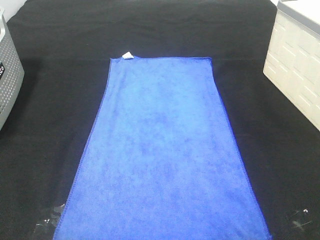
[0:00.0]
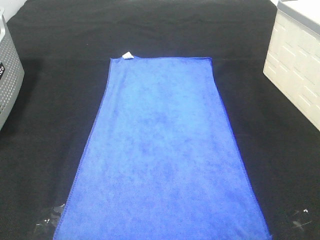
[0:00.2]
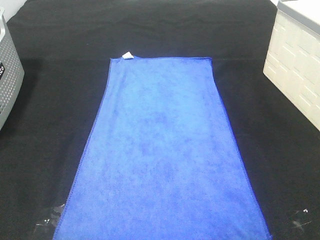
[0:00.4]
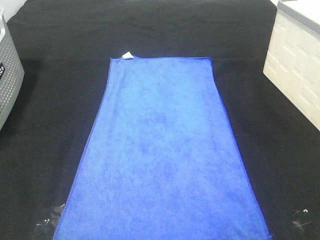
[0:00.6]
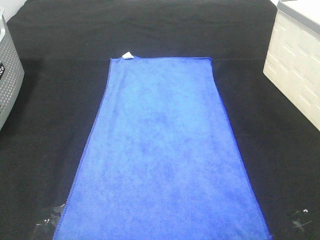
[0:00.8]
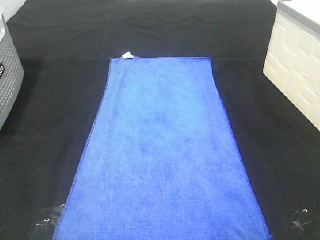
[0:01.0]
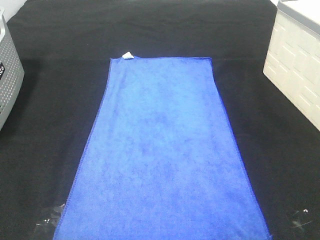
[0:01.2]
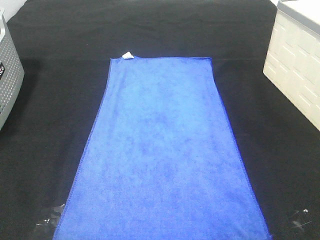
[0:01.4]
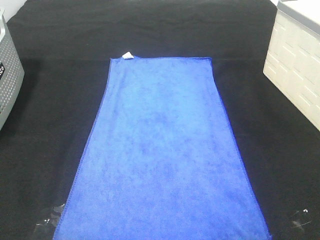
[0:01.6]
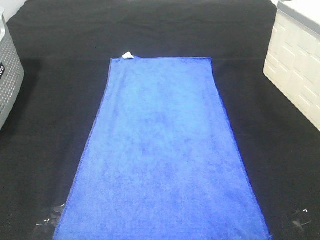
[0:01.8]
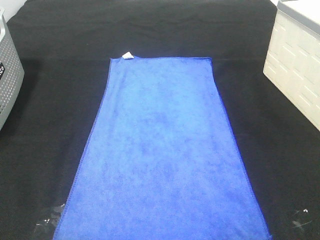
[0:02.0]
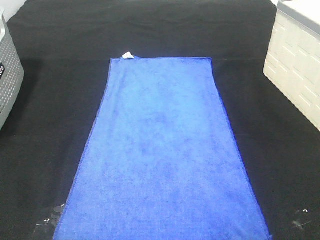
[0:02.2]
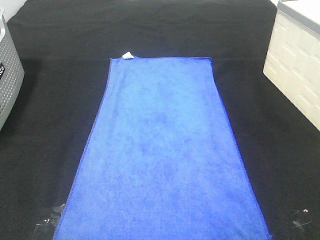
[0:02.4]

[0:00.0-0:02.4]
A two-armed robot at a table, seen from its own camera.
Task of the whole recording: Remove the towel and place it.
0:01.2 to 0:02.4: Both grippers stay about where they are.

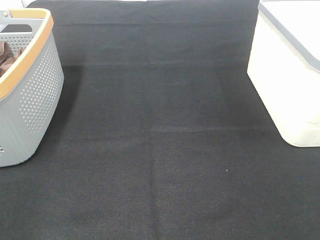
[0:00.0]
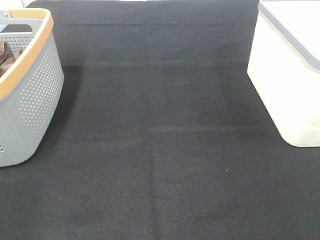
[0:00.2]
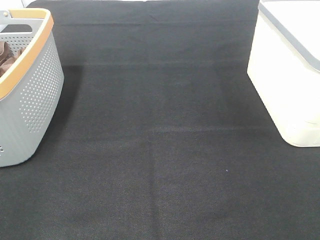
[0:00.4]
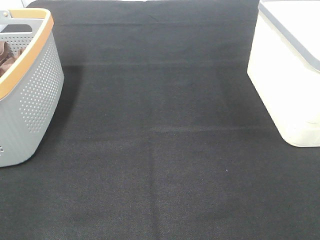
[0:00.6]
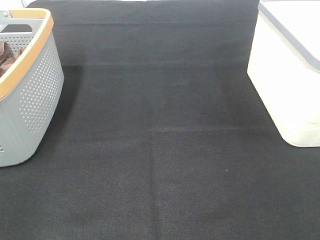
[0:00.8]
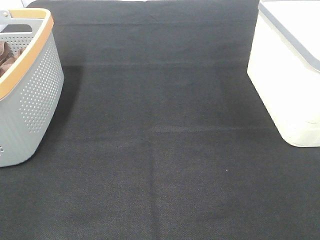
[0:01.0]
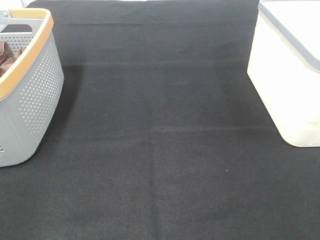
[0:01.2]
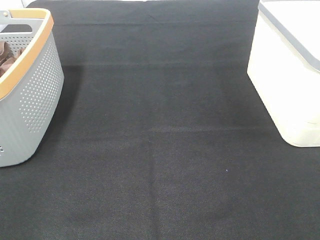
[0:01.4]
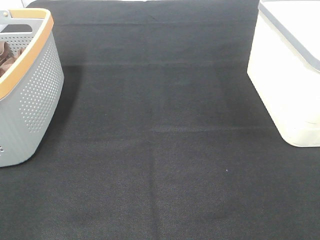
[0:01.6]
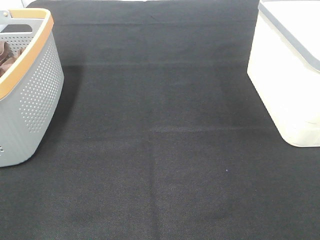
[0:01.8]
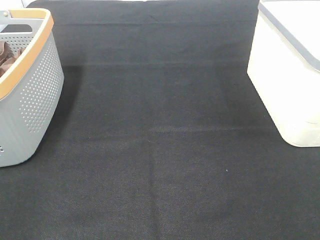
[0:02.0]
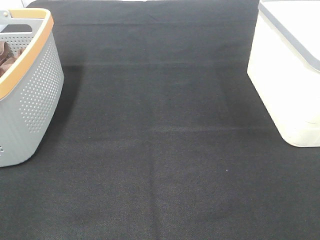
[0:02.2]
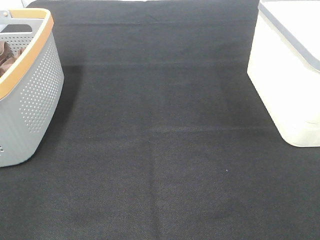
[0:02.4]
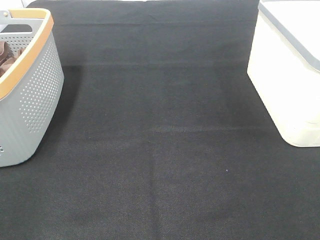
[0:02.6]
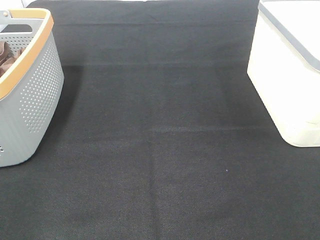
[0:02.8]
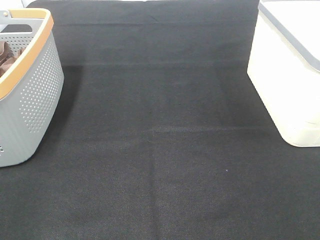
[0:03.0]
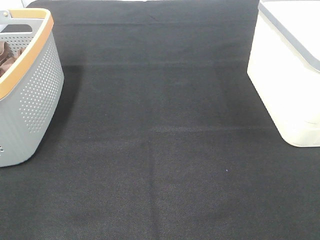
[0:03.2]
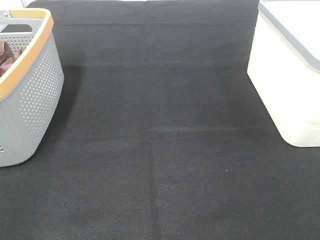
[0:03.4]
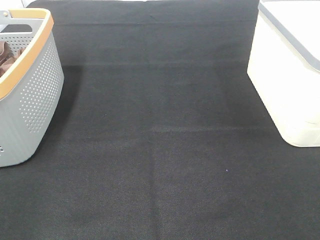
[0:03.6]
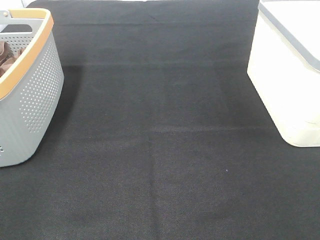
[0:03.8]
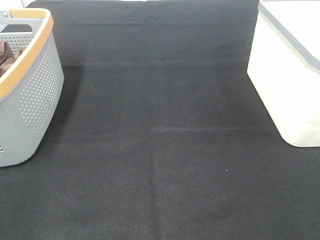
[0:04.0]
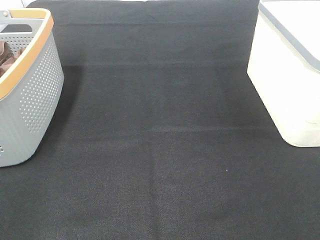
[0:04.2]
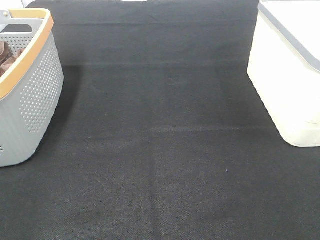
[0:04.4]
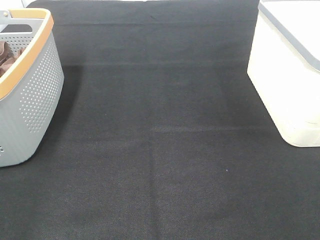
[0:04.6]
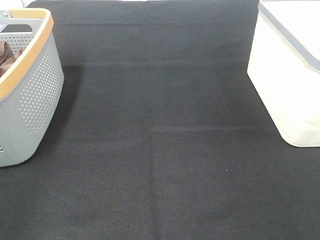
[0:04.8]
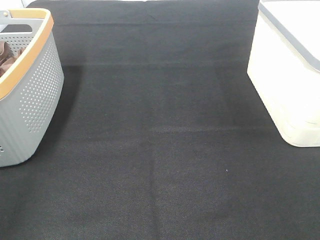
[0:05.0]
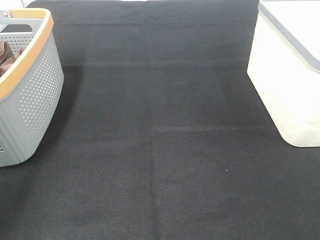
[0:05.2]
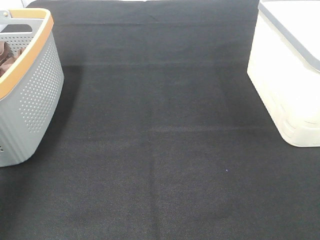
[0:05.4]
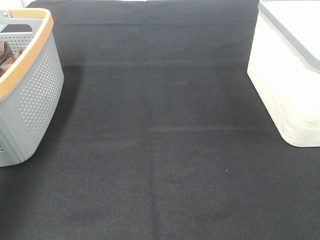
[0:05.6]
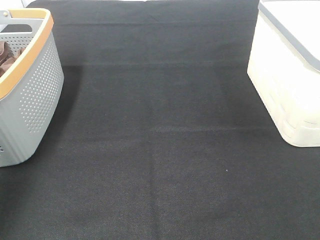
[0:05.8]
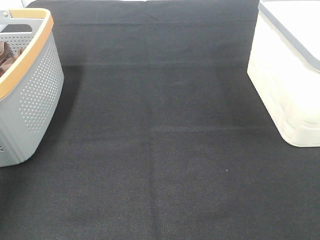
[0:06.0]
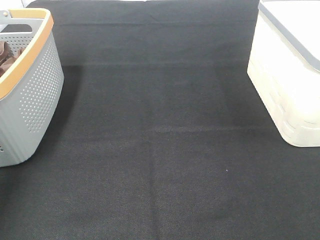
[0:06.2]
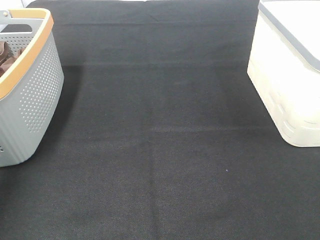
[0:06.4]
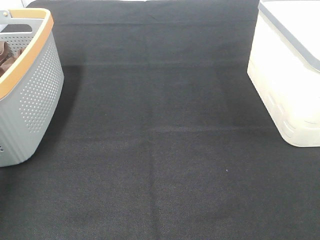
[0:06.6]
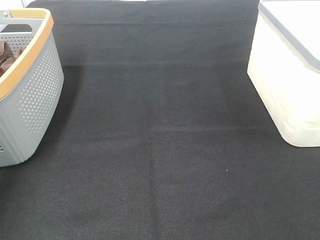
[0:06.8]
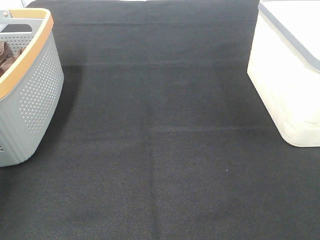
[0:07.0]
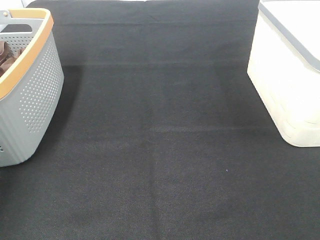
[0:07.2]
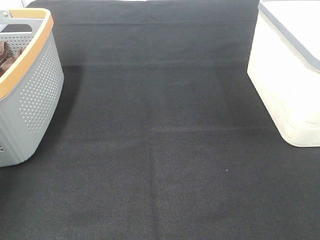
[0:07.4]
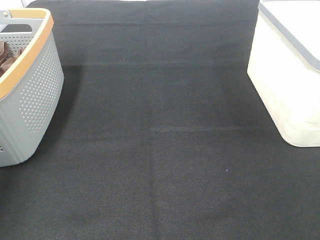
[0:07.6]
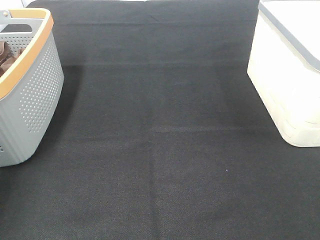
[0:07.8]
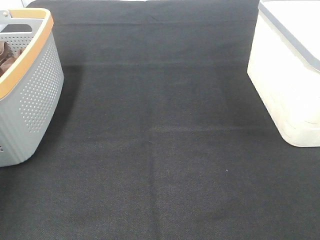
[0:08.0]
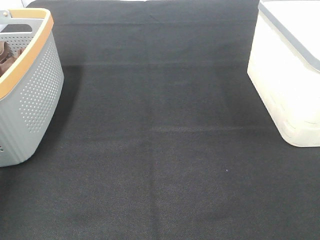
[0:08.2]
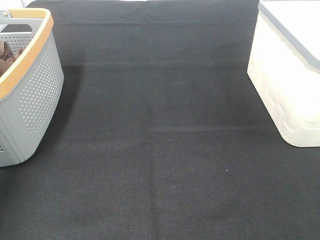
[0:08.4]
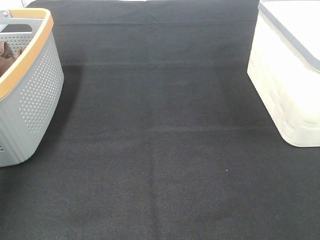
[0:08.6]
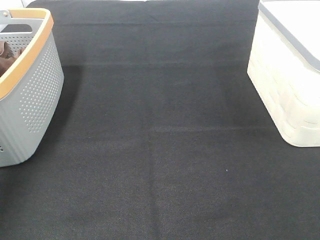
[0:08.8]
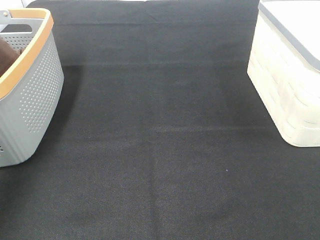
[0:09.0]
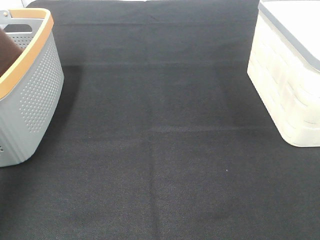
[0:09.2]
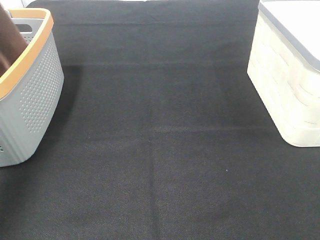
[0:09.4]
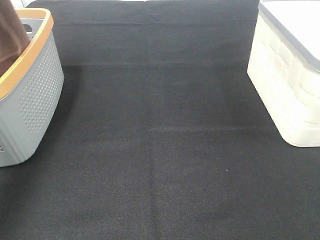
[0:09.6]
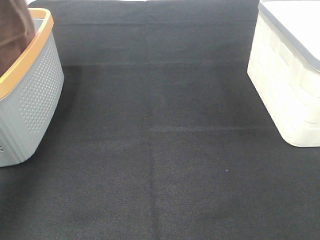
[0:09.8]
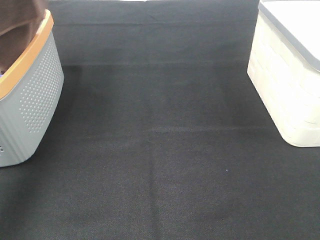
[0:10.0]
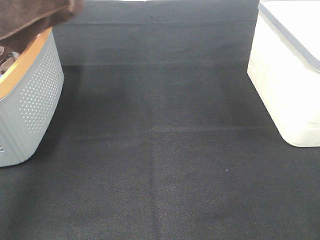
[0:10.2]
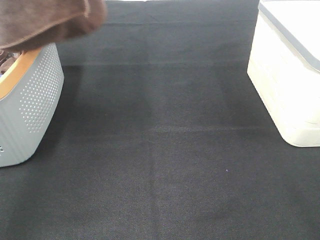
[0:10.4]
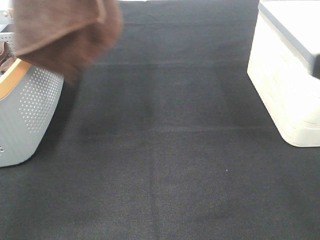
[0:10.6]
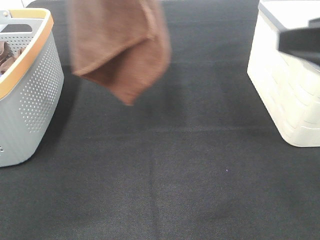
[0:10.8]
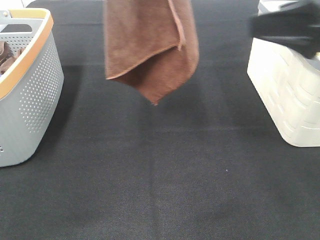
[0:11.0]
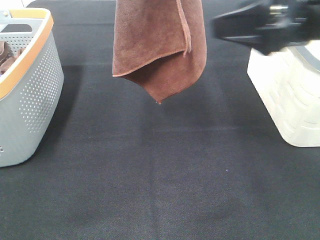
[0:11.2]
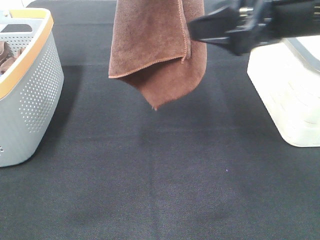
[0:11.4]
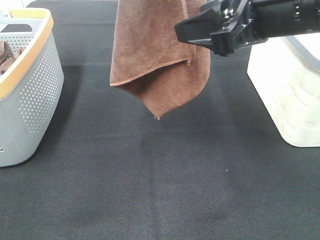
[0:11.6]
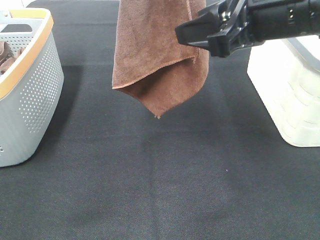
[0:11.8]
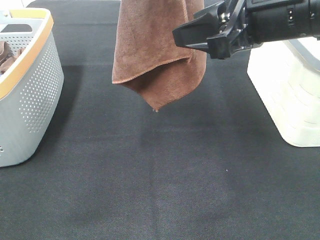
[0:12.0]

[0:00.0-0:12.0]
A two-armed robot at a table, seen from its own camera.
Task of the whole recording: Remove the towel and place it.
0:00.0 to 0:03.0: Both grippers stay put.
0:04.4 to 0:06.0: The left gripper shifts approximately 30 cm forward.
0:09.0 to 0:10.4: The left gripper travels to the right and upward by roughly 15 cm.
0:10.4 to 0:12.0: The right gripper is displaced forward and to the left by some 20 cm, while the left gripper heads to the right, covering approximately 10 cm.

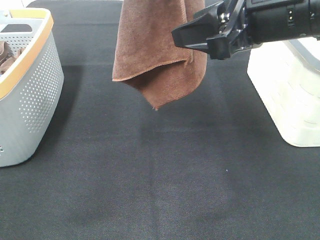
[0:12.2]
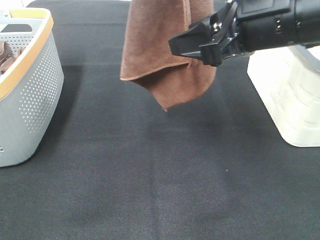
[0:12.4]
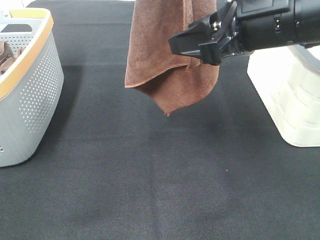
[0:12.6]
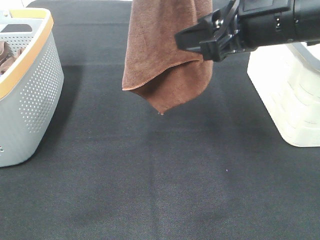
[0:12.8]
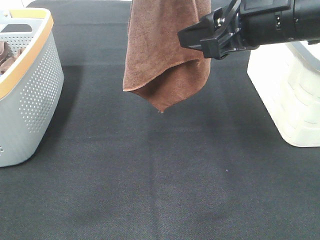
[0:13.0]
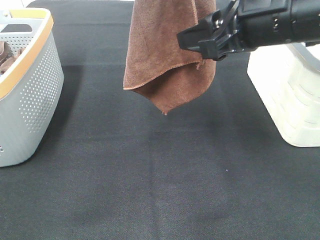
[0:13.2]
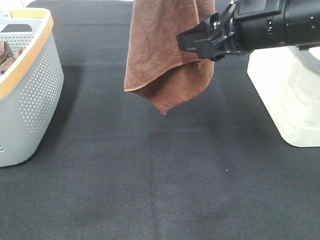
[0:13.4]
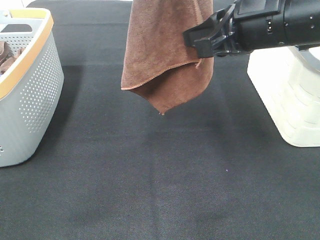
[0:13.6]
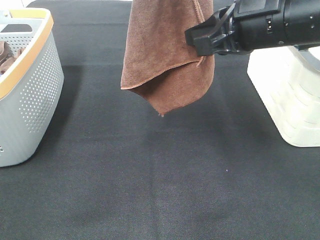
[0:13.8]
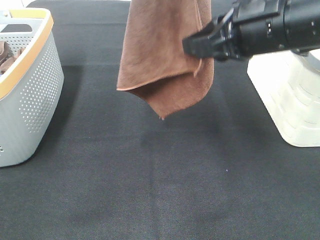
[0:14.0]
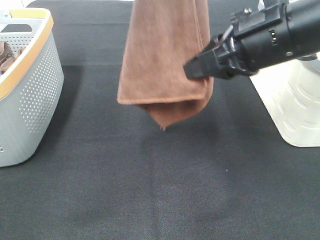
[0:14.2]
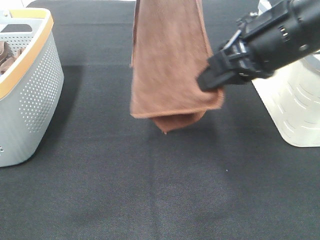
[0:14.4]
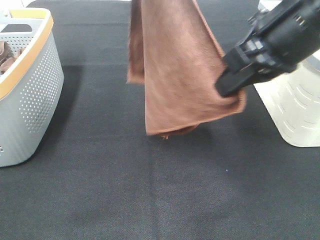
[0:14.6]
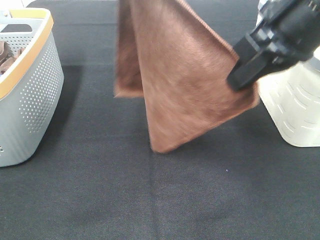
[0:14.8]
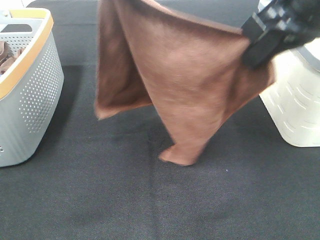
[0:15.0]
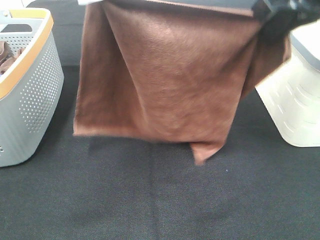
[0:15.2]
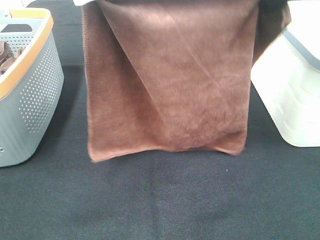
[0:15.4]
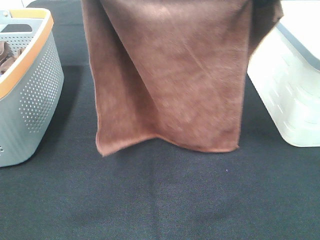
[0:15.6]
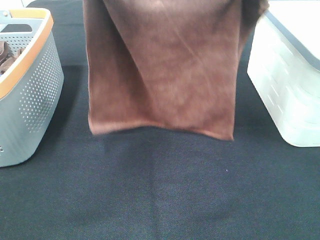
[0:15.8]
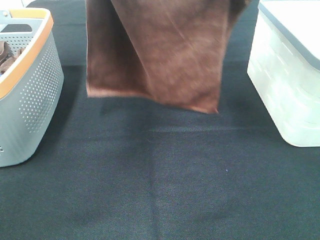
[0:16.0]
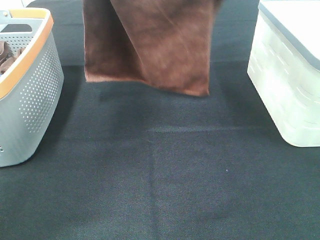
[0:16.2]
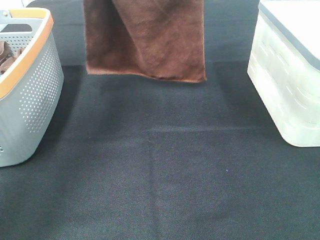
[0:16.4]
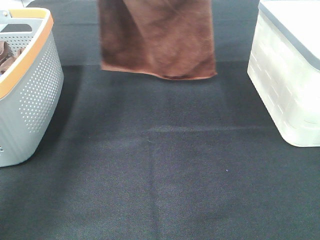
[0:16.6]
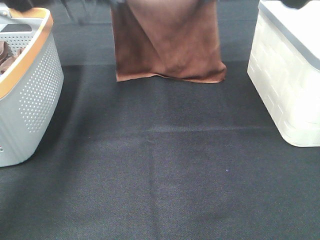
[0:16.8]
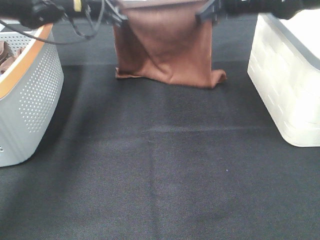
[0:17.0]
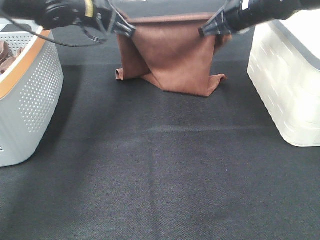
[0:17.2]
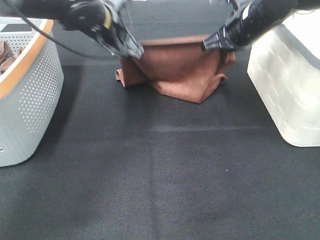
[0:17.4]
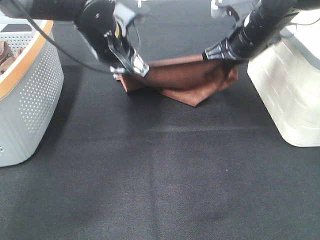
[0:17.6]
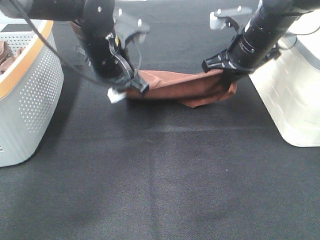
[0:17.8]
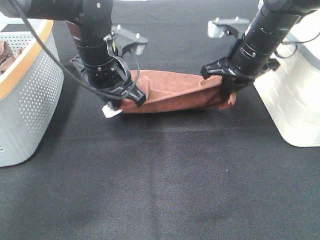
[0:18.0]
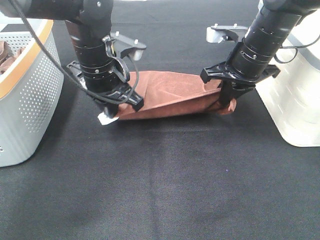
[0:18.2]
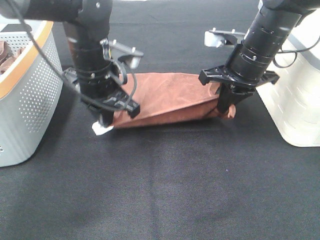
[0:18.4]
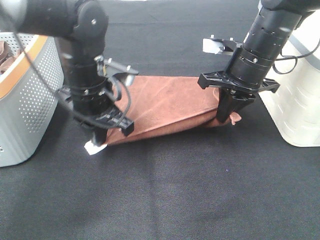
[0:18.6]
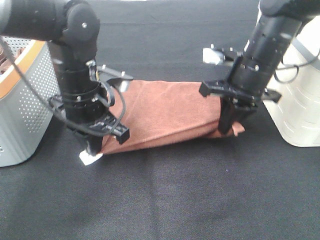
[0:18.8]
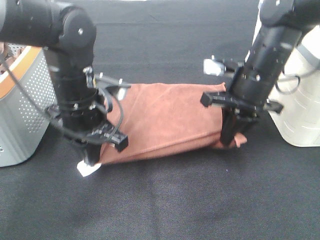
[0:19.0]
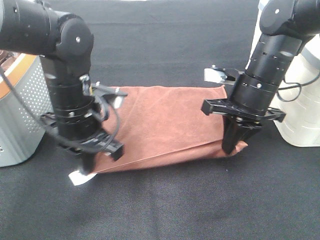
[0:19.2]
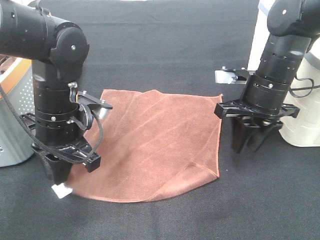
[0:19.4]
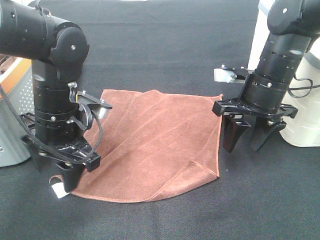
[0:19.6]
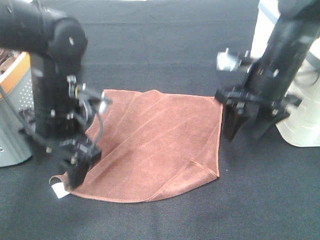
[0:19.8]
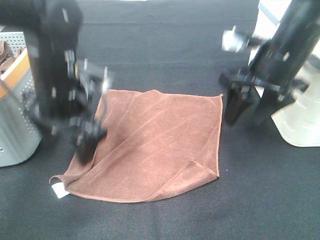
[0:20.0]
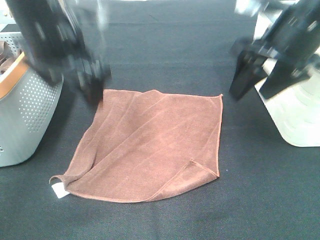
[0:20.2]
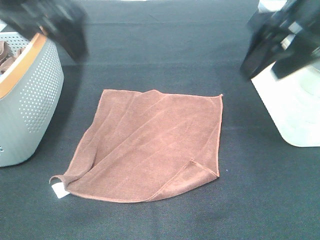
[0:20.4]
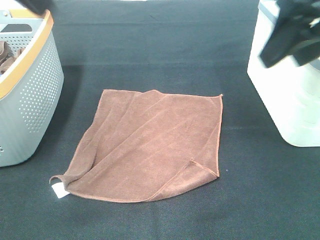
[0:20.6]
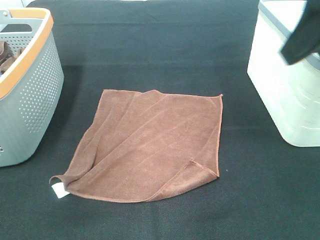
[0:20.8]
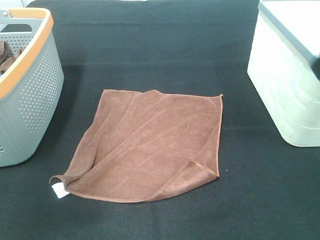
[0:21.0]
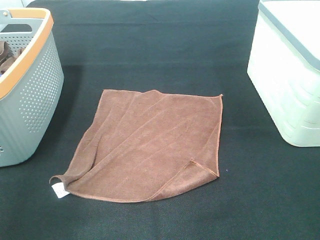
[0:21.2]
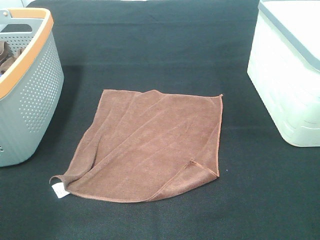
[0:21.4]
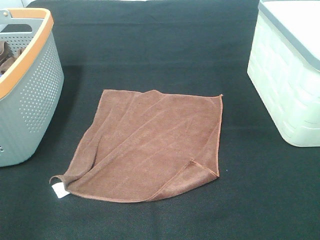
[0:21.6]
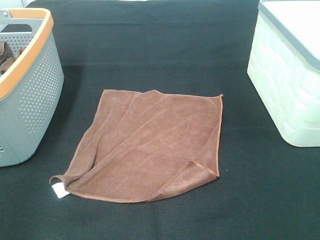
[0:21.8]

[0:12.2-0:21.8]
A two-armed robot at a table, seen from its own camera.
Task of the whole recording: Remove the towel and place it.
Step, 0:12.4 to 0:15.4: Right hand: spread the brown towel flat on the table.
Step, 0:12.4 to 0:15.6: Left hand: spread the brown towel flat on the table.
0:12.2 to 0:13.8: The right gripper closes its fingers.
0:13.8 to 0:15.4: The left gripper travels downward by about 5 cm; the right gripper moves upward, about 10 cm.
0:15.4 to 0:17.0: Both grippers travel together forward and downward, about 25 cm.
0:17.0 to 0:18.6: The right gripper travels backward and downward by about 10 cm, while the left gripper shifts roughly 15 cm backward and downward.
0:18.6 to 0:20.2: The right gripper is displaced upward and backward by some 10 cm, and opens up; the left gripper is displaced upward by about 15 cm, and opens.
0:20.2 to 0:21.8: The right gripper moves backward, roughly 25 cm. Meanwhile the left gripper shifts some 35 cm backward and to the left.
